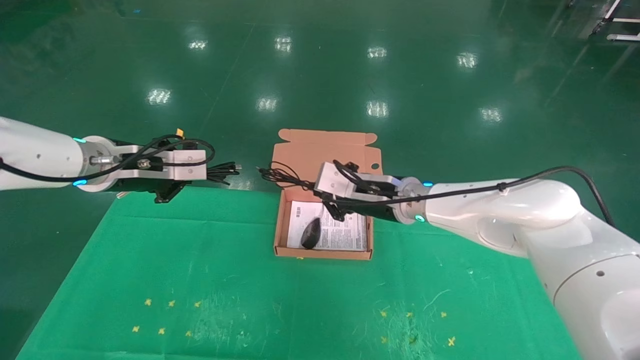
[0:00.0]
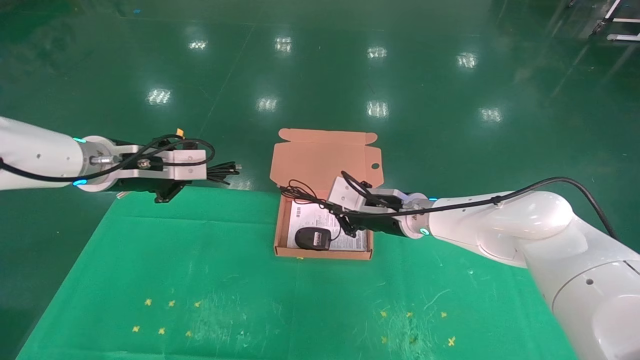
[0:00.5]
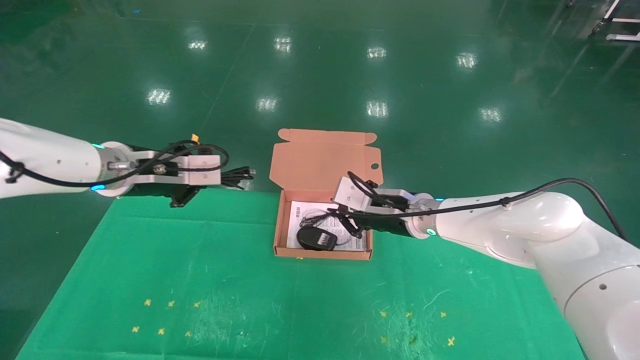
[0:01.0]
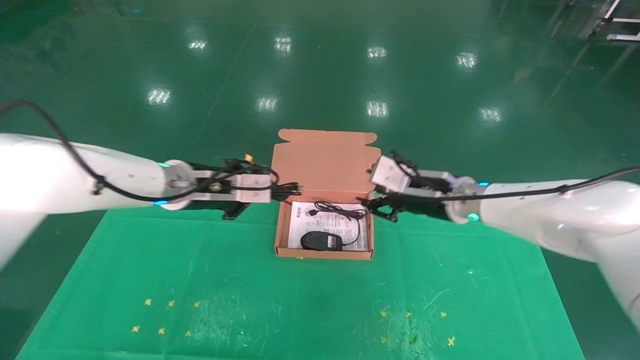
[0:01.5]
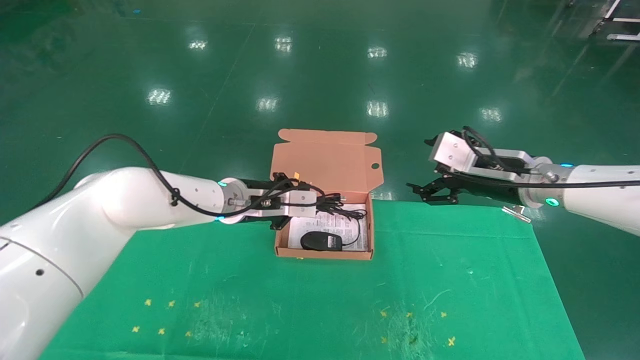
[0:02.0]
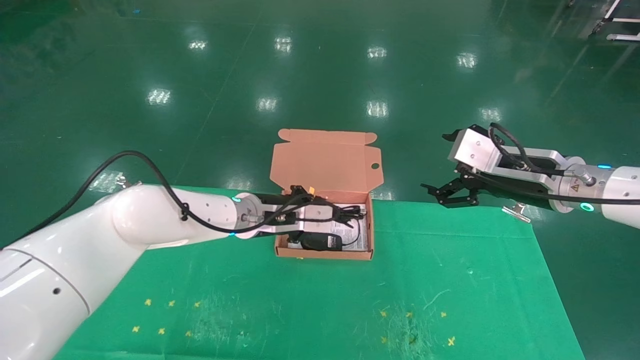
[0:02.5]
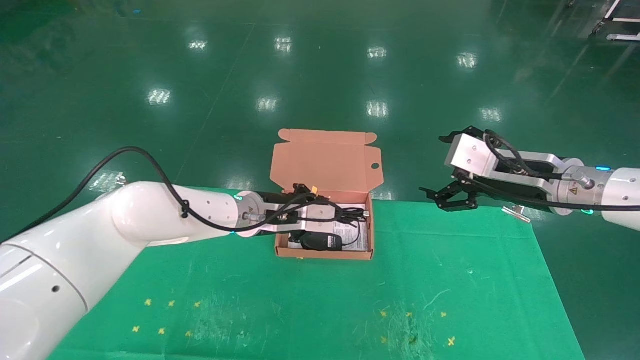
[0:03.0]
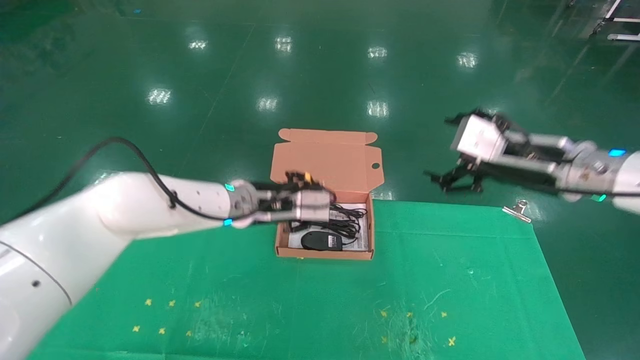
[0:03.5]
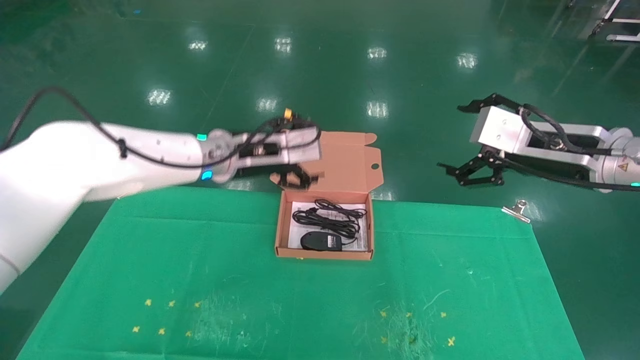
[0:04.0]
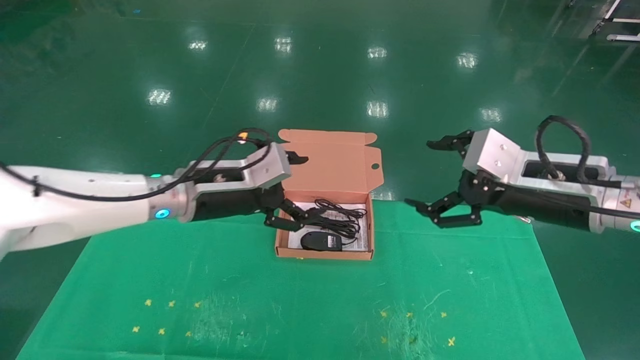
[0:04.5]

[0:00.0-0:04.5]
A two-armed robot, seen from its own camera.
Task of the whole recording: grasp data cable left put into box grasp mouse right put into box.
Step, 0:00.0 to 0:03.0: Place the mouse and power cord into the box.
0:00.0 to 0:02.0: The right gripper heads to the right, covering roughly 15 cm, and opens. Meanwhile the left gripper shifts some 20 cm to the right, downward and forward.
0:02.0 to 0:04.5: Both grippers travel together backward, about 10 cm. The left gripper opens.

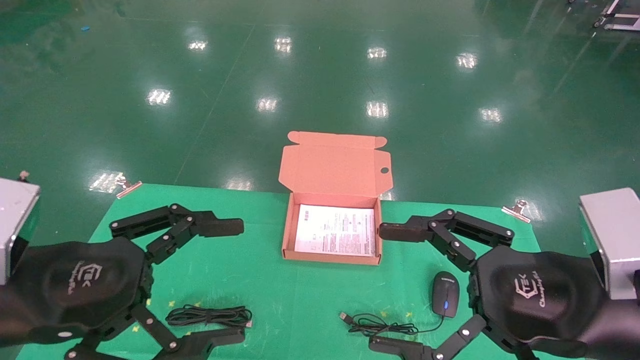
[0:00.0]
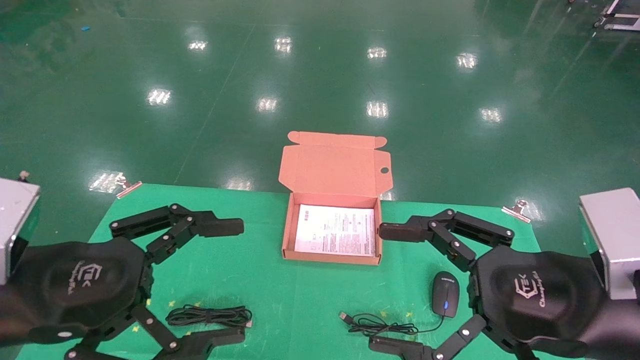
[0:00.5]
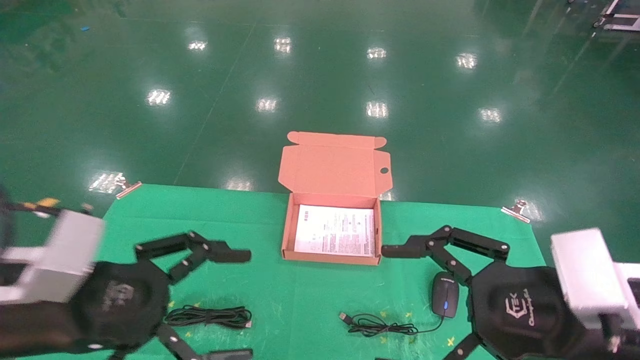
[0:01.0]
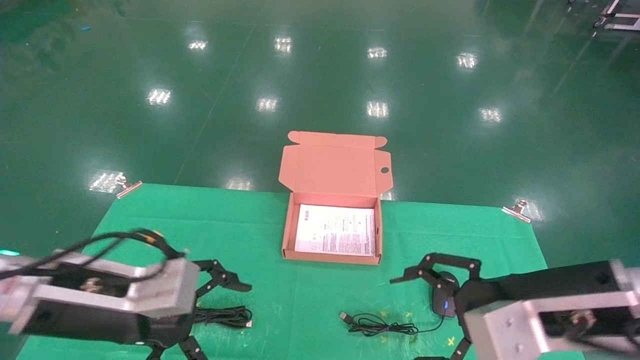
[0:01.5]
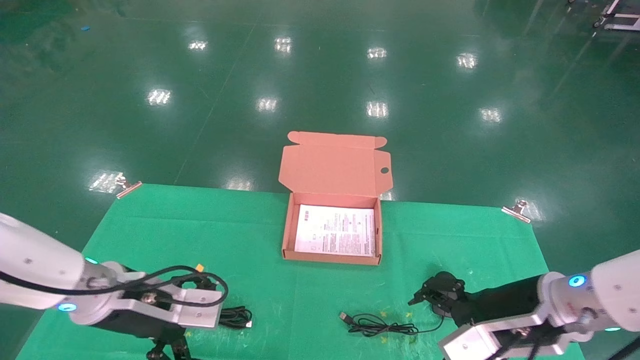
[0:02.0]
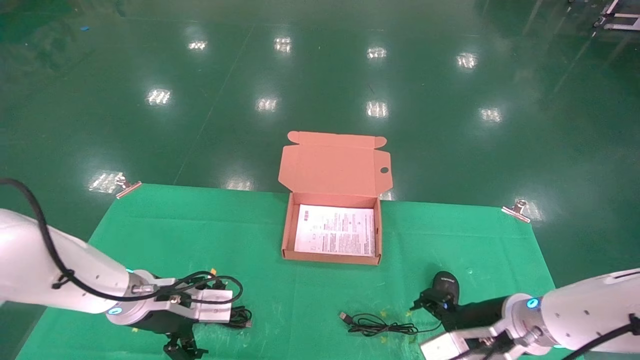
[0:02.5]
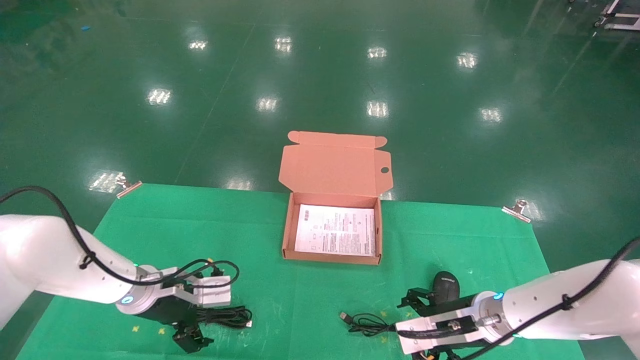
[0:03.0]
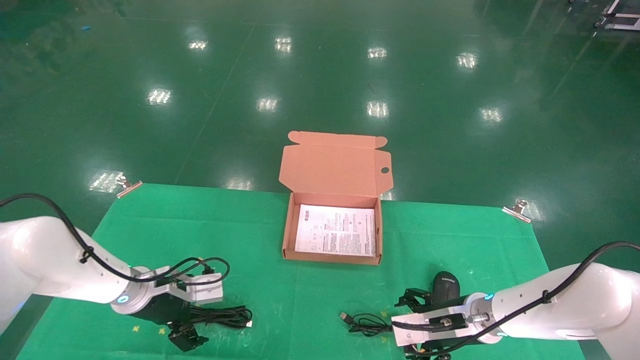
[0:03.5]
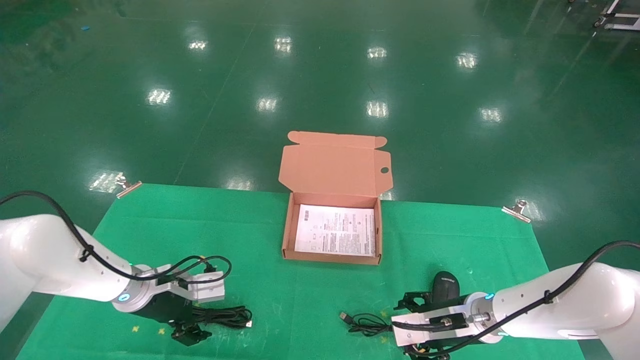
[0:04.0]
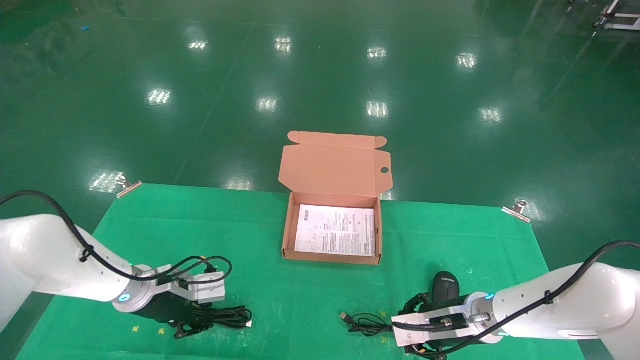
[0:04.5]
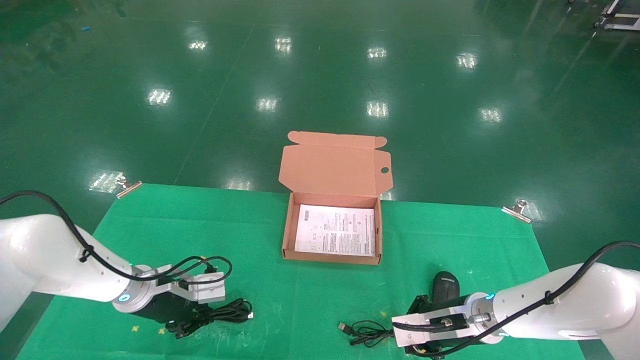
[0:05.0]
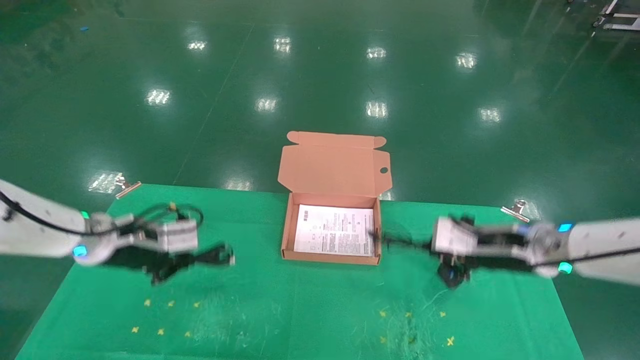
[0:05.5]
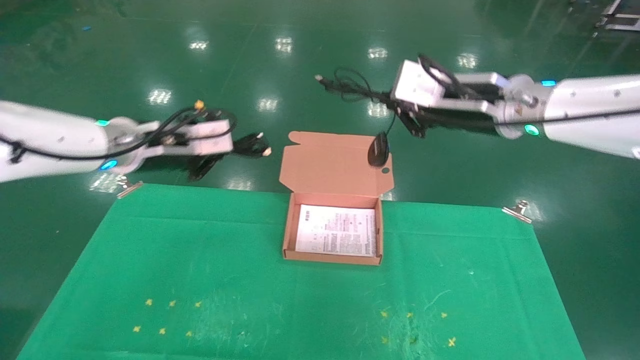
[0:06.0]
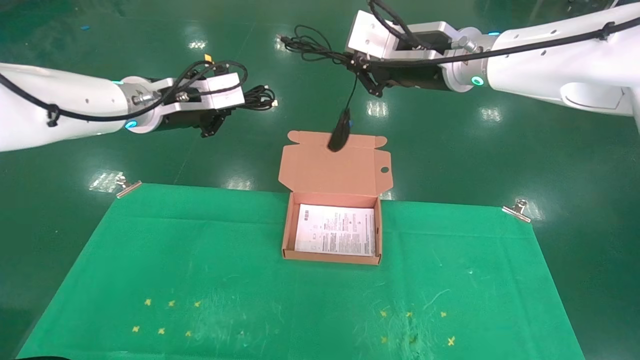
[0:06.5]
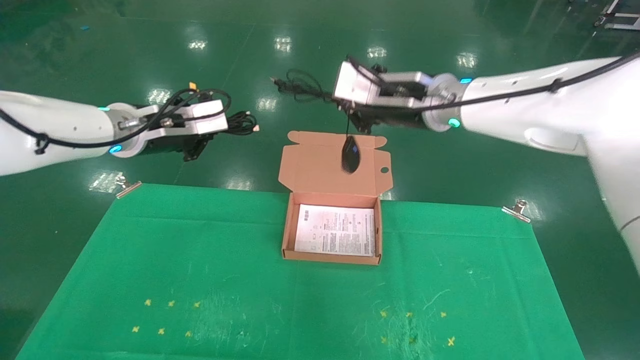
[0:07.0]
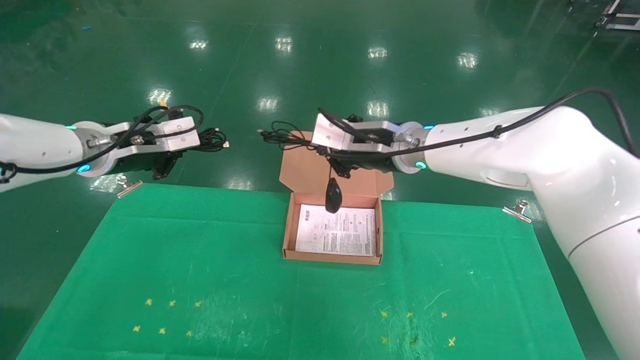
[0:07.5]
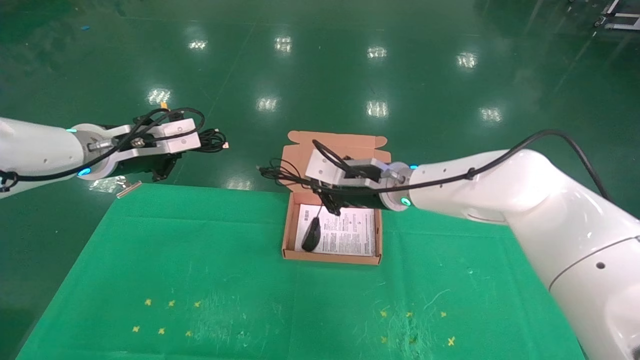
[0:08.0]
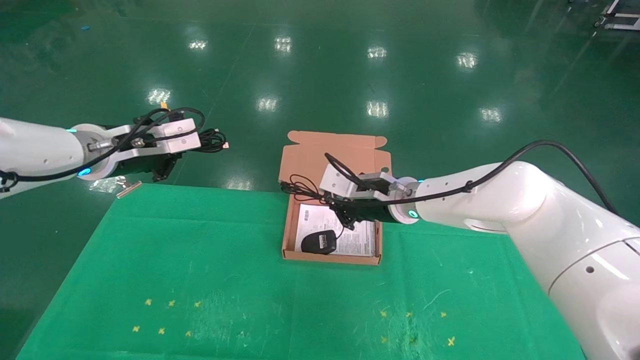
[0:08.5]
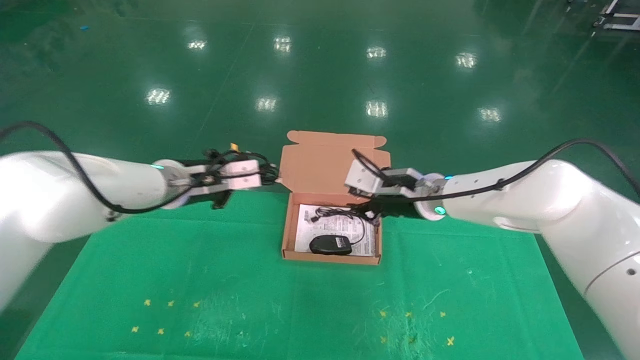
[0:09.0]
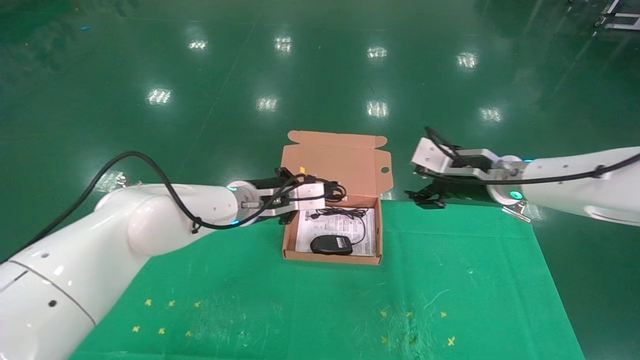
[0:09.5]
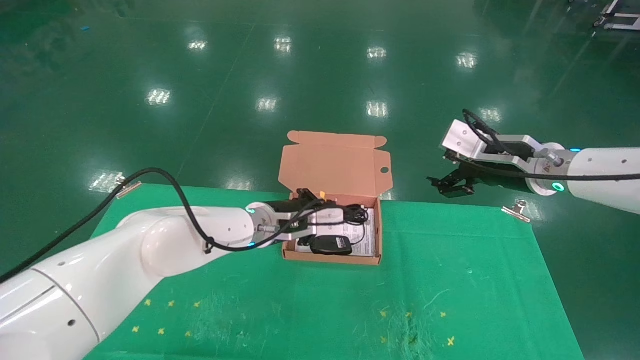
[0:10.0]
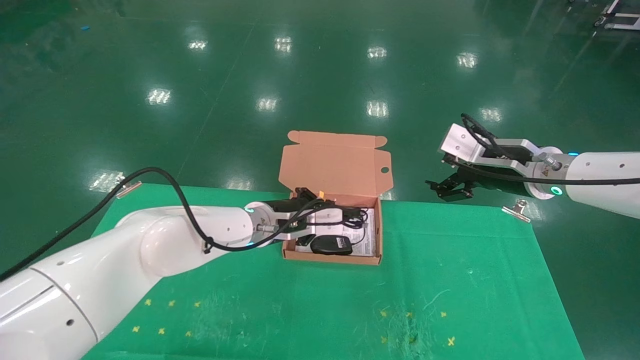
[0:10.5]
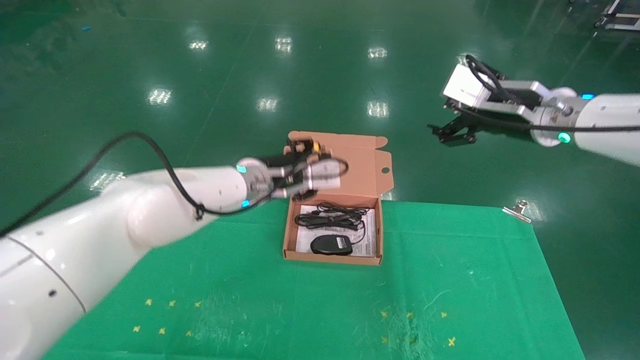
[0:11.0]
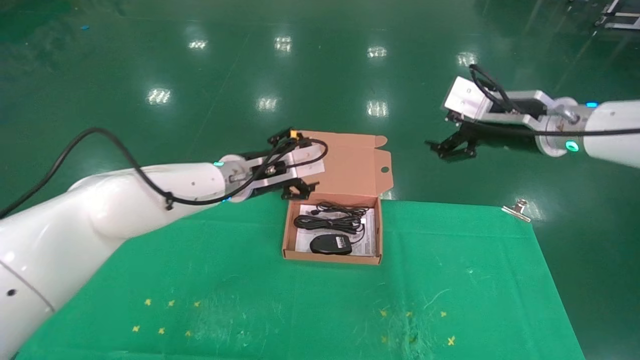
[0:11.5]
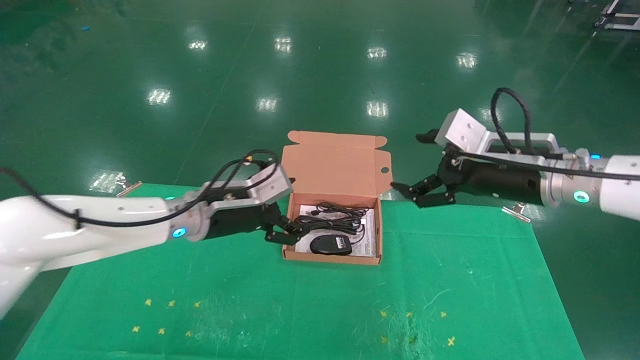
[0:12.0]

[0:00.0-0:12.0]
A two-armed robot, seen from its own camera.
Task of the whole recording: grasp data cable left put into box grasp mouse right put into box.
Step, 0:01.0 to 0:04.5: Grab and pick up both the mouse and power cord from the accessory packaging area at the same time.
Step, 0:05.0 to 0:10.5: Place the mouse and power cord into the box.
0:00.0 to 0:02.0: The grippers both shift forward and downward by about 15 cm.
0:02.0 to 0:04.0: The right gripper is displaced downward and forward by about 15 cm; the left gripper is displaced forward and downward by about 15 cm.
0:04.0 to 0:06.0: Both grippers travel together upward, some 25 cm. The left gripper closes up. The right gripper closes up.
0:06.0 to 0:08.0: The right gripper moves downward, to the left and forward, about 15 cm.
0:08.0 to 0:10.0: The right gripper travels to the right by approximately 20 cm, and opens up, while the left gripper goes some 25 cm to the right and downward.
0:10.0 to 0:12.0: The right gripper moves backward, roughly 5 cm; the left gripper moves to the left and backward, approximately 10 cm, and opens its fingers.

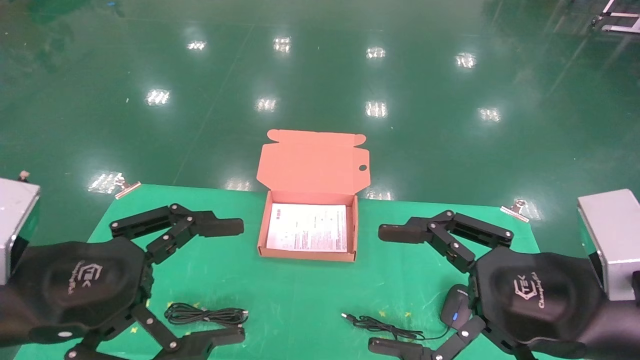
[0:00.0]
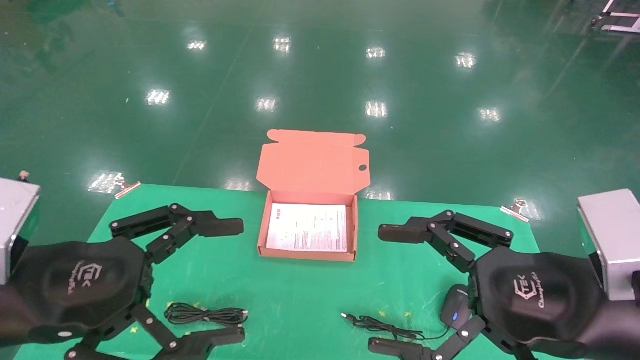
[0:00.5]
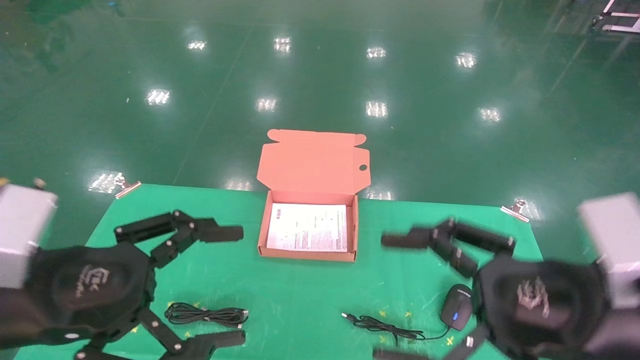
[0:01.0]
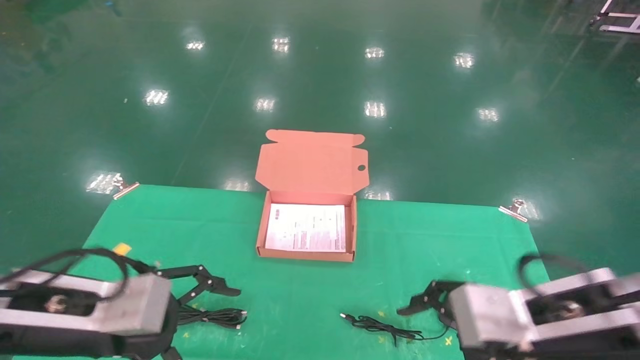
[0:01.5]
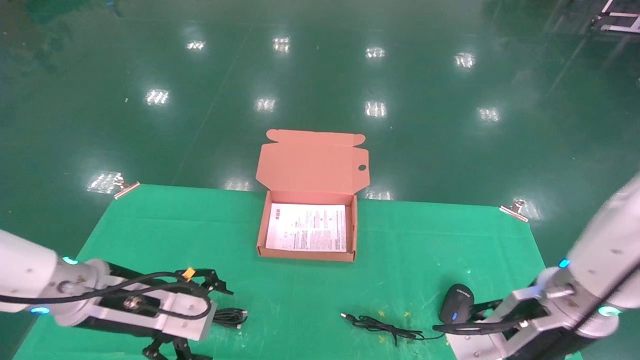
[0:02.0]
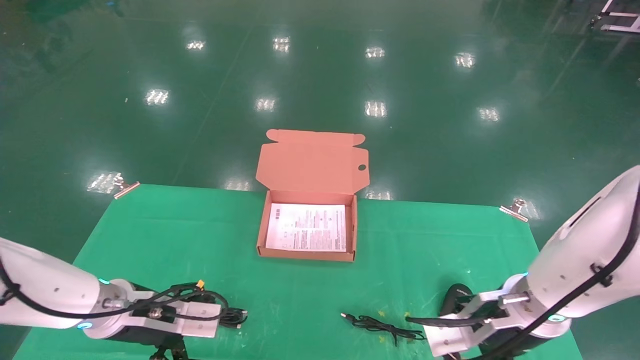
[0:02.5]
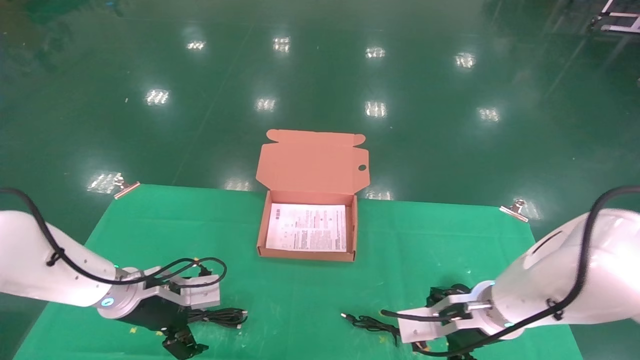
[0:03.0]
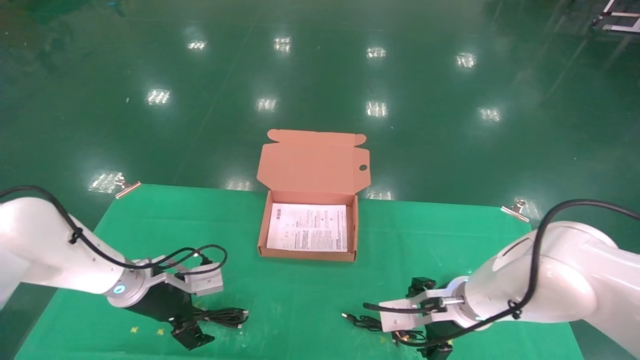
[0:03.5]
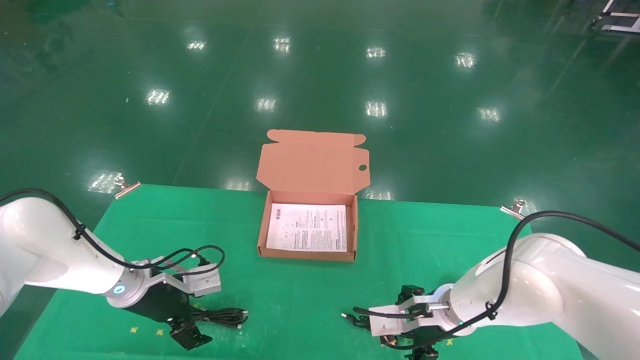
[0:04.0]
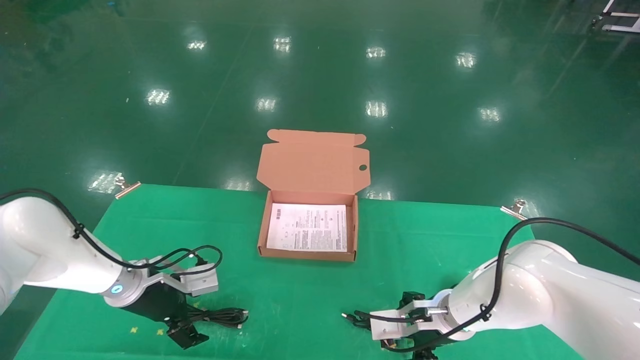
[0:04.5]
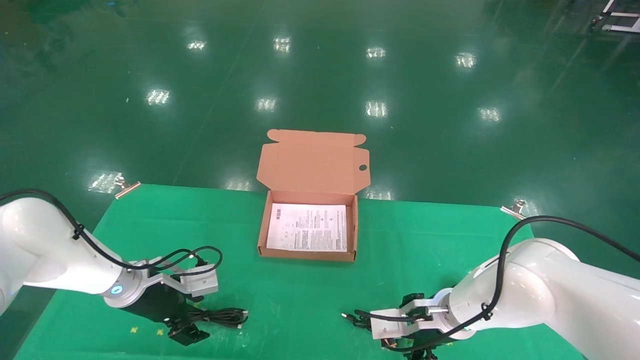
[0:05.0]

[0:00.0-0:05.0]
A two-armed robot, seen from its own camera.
Task of the whole recording: grasp data cable left put into box grasp mouse right put into box.
0:00.0 to 0:02.5: Both grippers travel together forward and downward, some 20 cm.
0:02.5 to 0:05.0: The left gripper moves forward, approximately 5 cm, while the right gripper moves downward and forward, roughly 10 cm.
